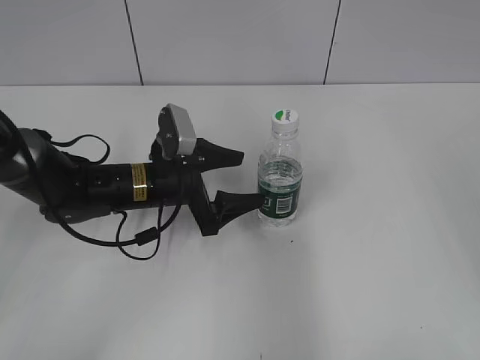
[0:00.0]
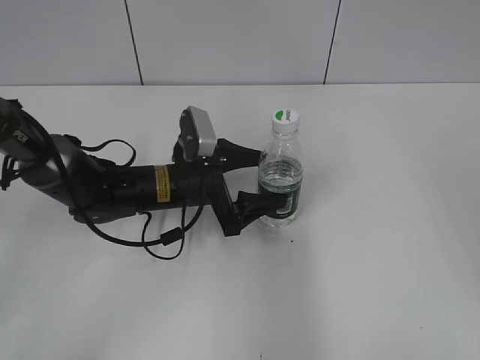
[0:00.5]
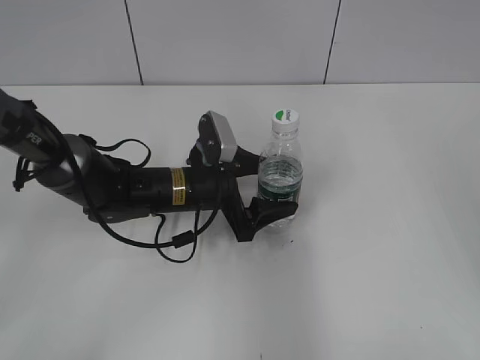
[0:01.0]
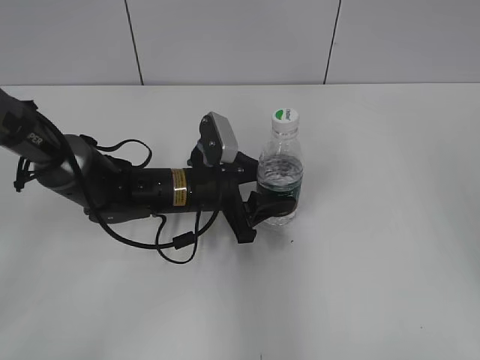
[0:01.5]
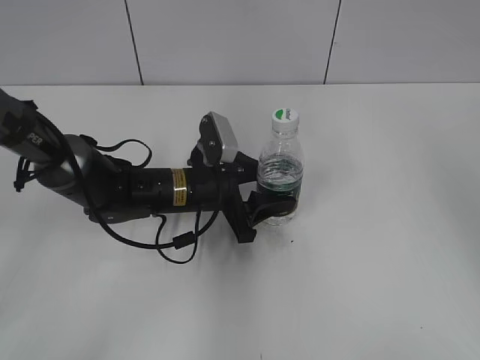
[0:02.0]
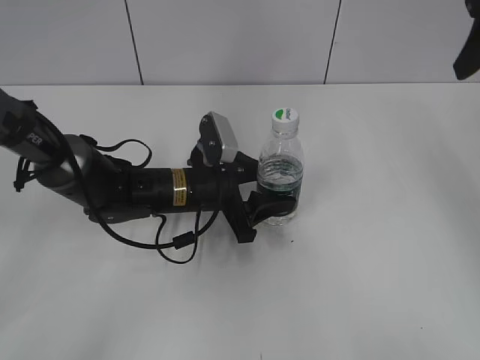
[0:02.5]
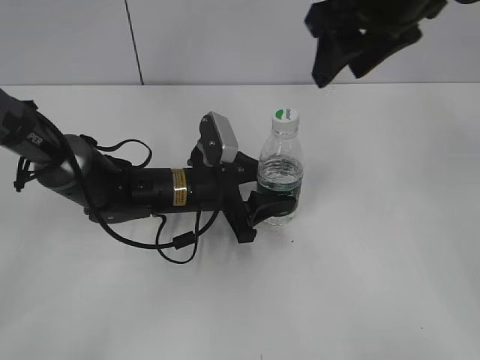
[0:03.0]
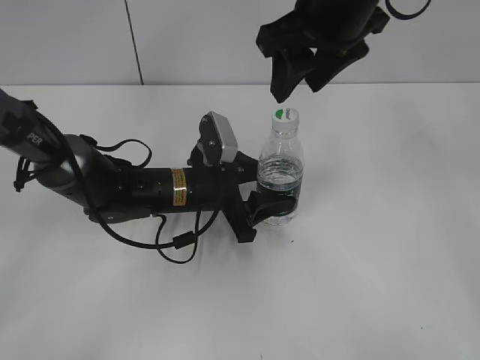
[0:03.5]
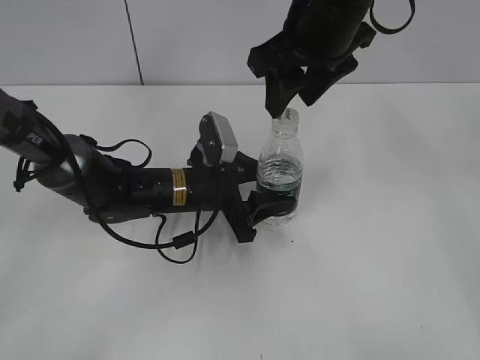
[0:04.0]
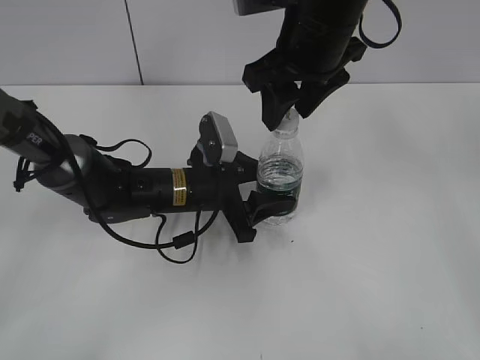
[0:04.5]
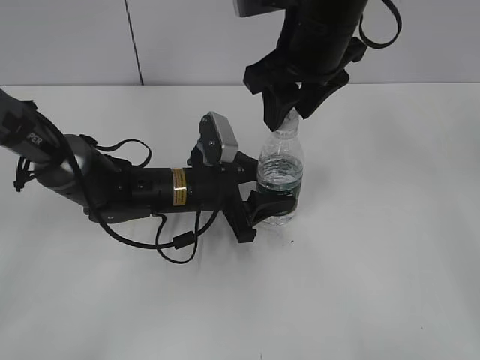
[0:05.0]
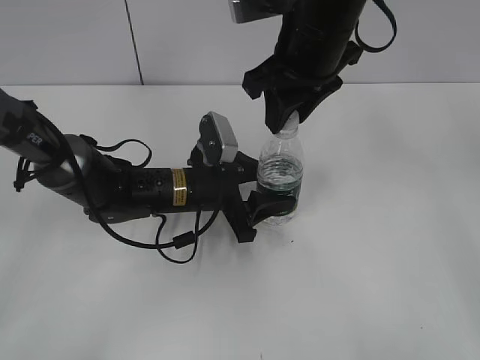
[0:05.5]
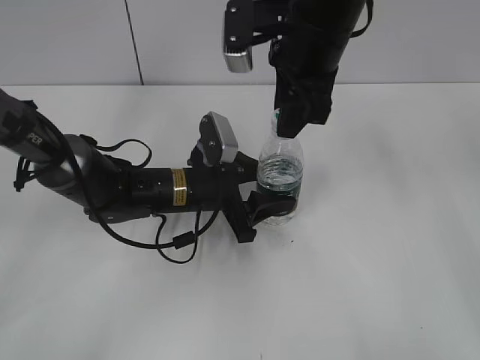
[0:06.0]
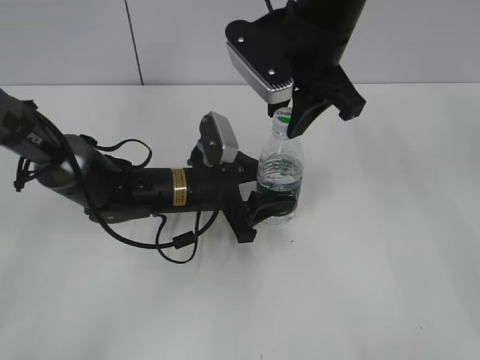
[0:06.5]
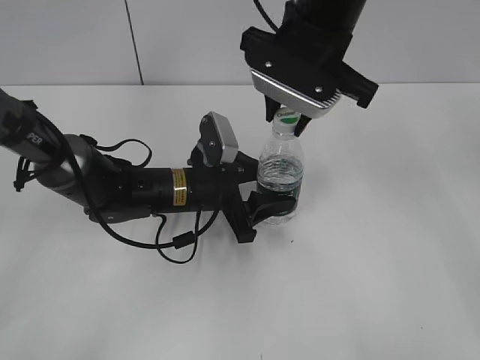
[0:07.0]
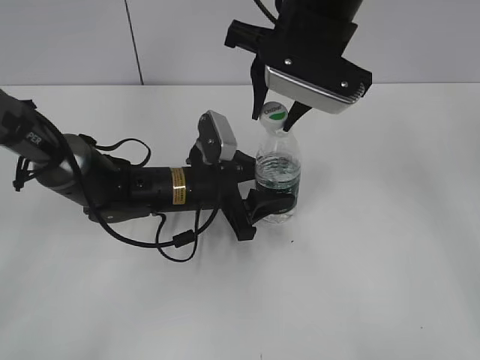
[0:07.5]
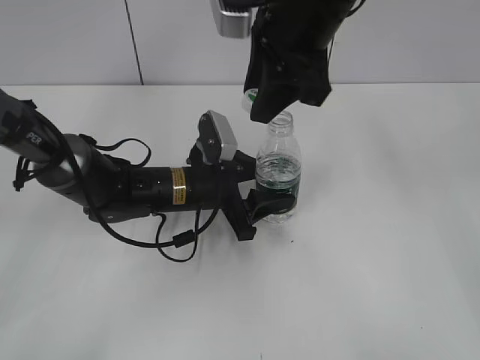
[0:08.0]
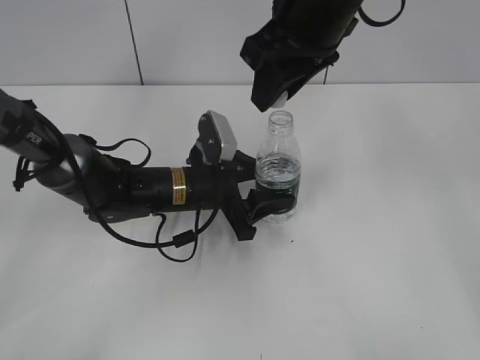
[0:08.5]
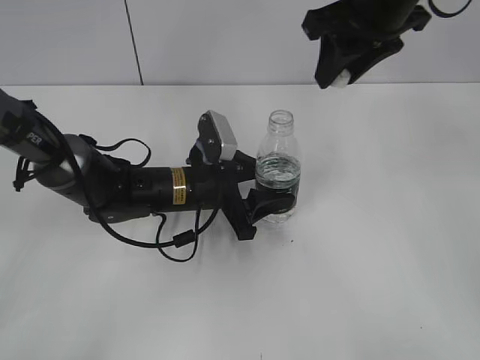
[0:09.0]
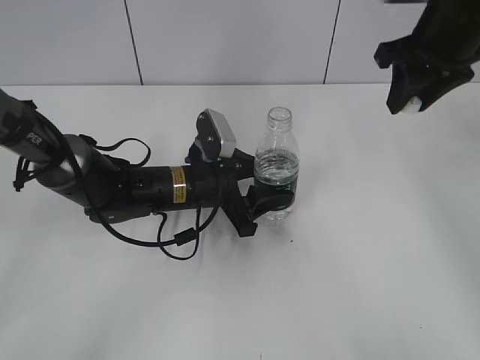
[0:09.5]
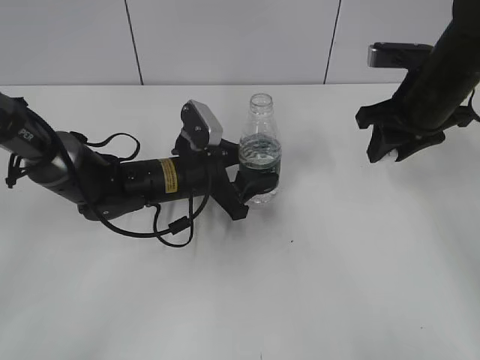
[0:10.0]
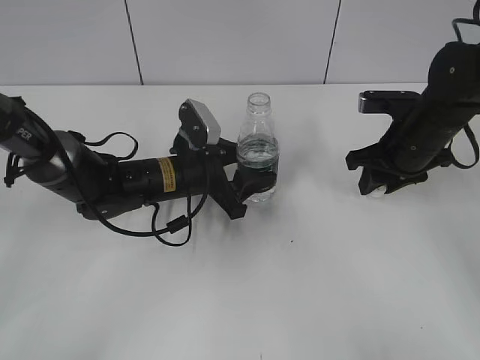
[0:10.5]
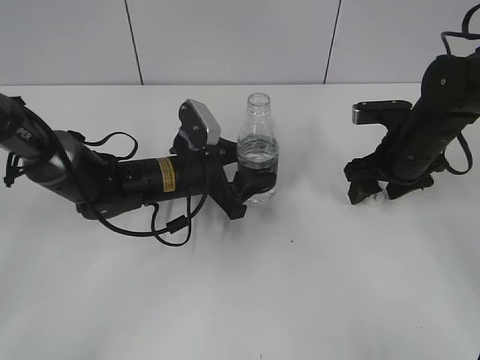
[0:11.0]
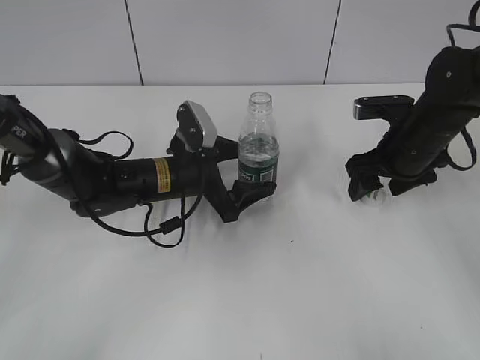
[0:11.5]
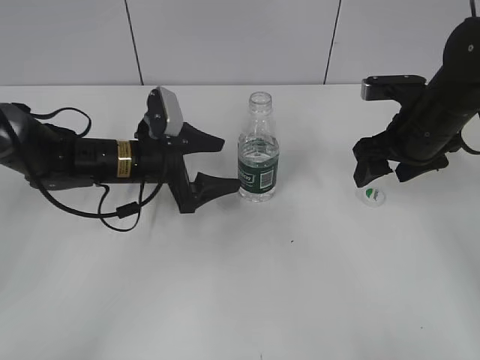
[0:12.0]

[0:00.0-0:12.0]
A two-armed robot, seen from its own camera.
Step, 0:02.0 to 0:07.5: Unscrew the bottle cap with the right gripper while holding the bottle with the left gripper.
Step, 0:08.0 to 0:11.0: Place the bottle cap on the table with the right gripper.
Step, 0:11.5 to 0:12.0: Place the bottle on the table with the left gripper.
0:00.0 to 0:02.0: The left gripper closes. The right gripper moves forward, roughly 10 cm.
0:02.0 to 0:04.0: The right gripper is displaced to the left and forward by about 25 cm, and closes its fingers.
0:04.0 to 0:06.0: The right gripper closes its fingers.
0:08.0 to 0:10.0: The right gripper moves to the right and downward, approximately 20 cm.
0:10.0 to 0:12.0: The right gripper opens its fingers; the left gripper is displaced to the left by roughly 5 cm, and opens up.

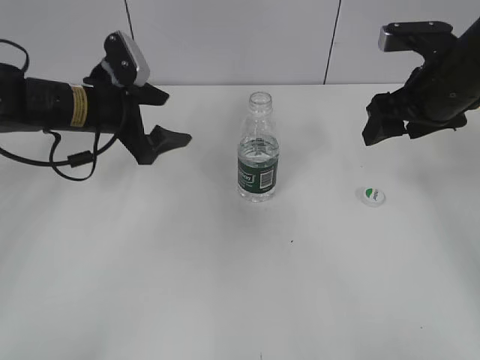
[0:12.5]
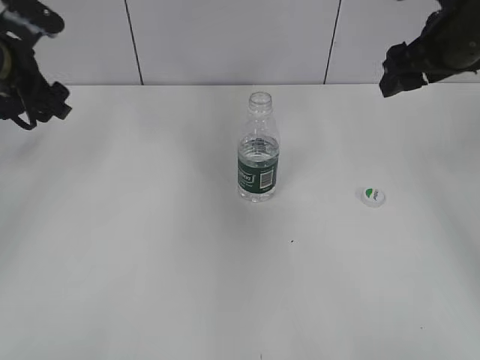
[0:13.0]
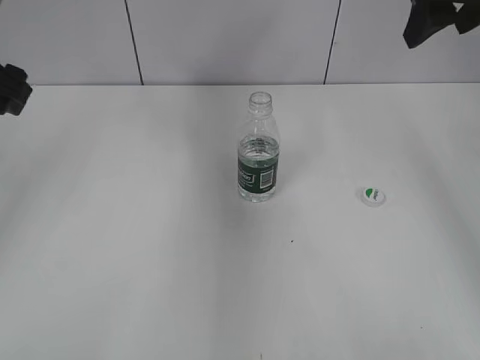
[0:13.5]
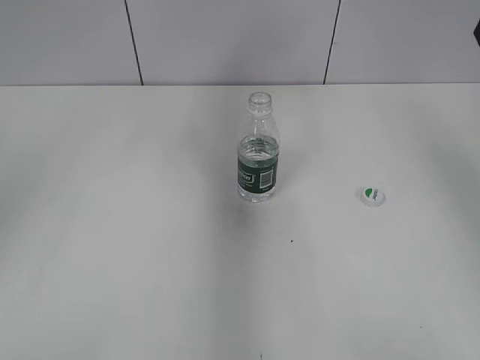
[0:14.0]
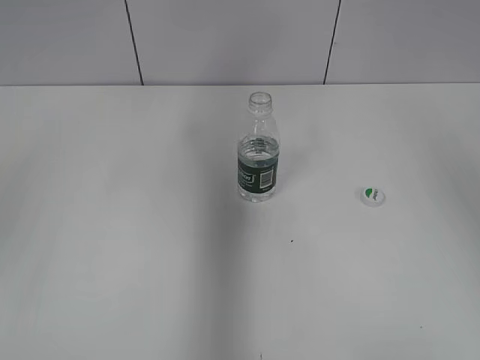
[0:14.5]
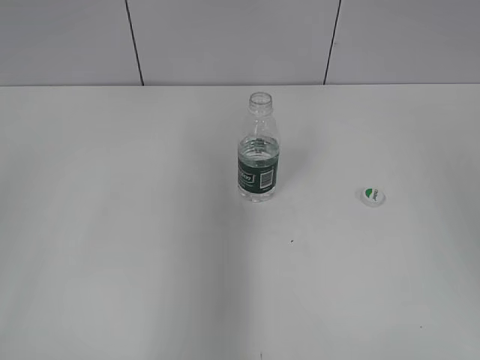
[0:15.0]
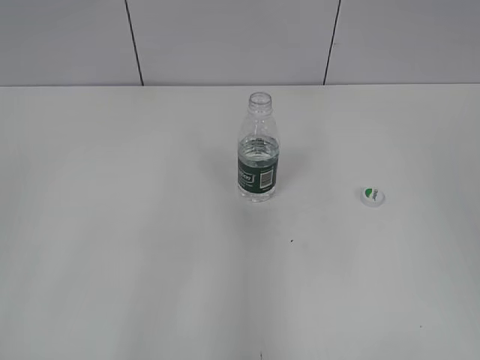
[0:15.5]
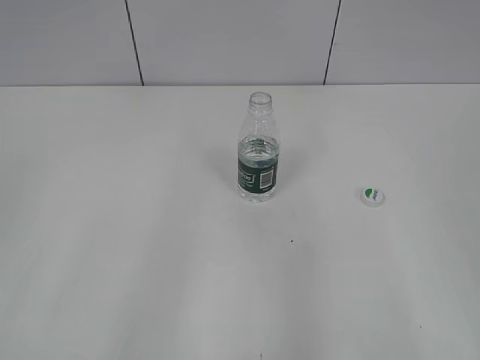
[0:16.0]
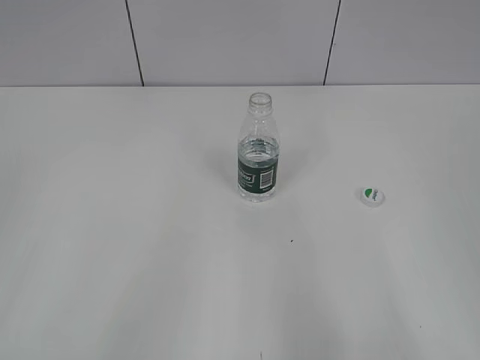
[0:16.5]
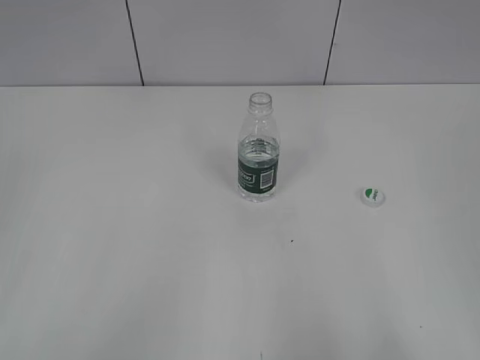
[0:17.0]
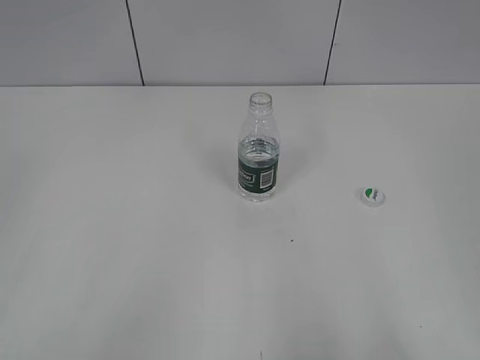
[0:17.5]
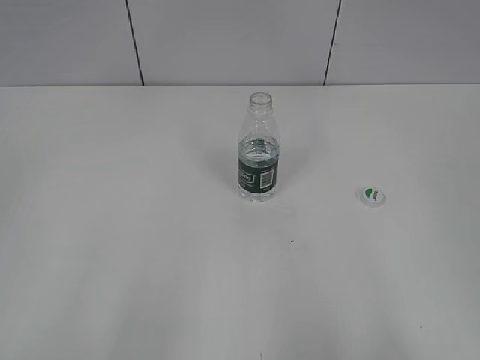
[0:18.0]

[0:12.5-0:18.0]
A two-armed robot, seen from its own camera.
0:12.5 to 0:14.5: The right gripper heads upward, covering roughly 20 cm. The left gripper moves backward, upward and to the left, approximately 25 cm.
0:14.5 to 0:16.0: The right gripper heads backward and downward, covering some 25 cm. Meanwhile the left gripper moves backward, approximately 15 cm.
